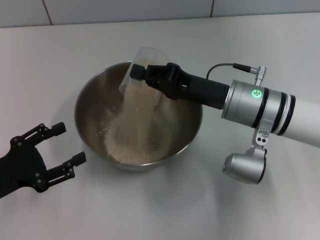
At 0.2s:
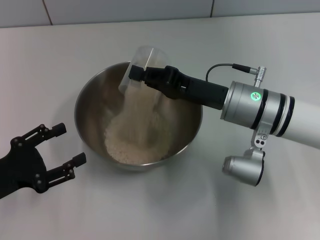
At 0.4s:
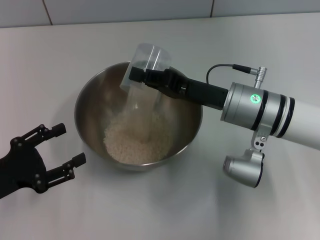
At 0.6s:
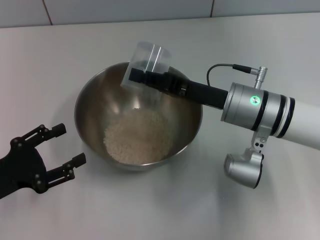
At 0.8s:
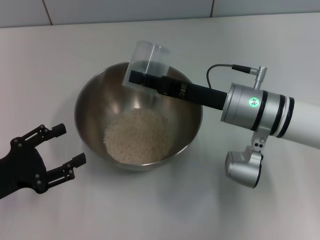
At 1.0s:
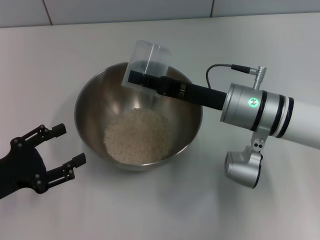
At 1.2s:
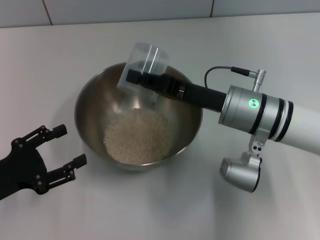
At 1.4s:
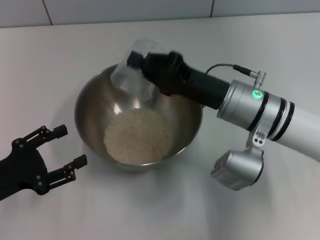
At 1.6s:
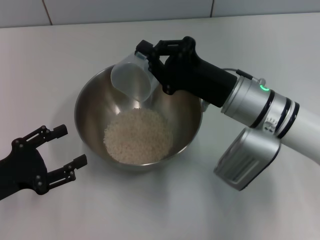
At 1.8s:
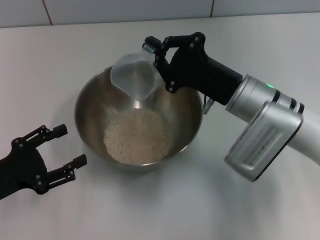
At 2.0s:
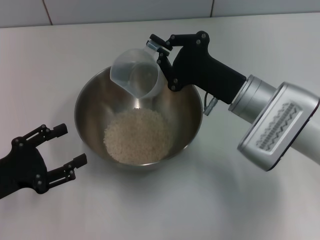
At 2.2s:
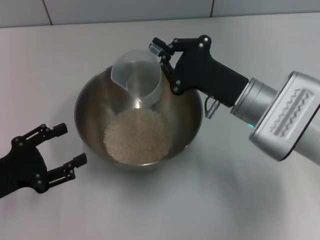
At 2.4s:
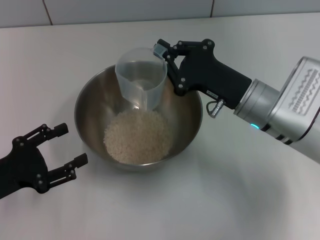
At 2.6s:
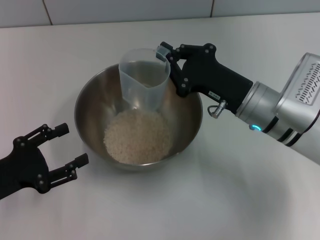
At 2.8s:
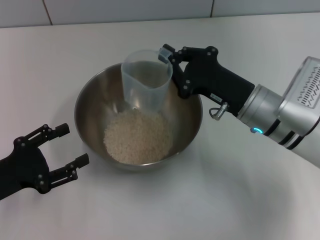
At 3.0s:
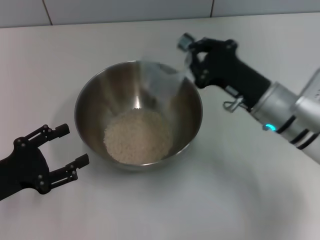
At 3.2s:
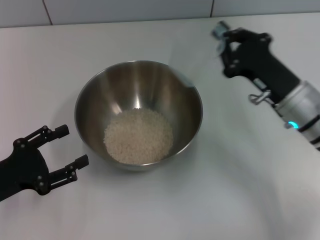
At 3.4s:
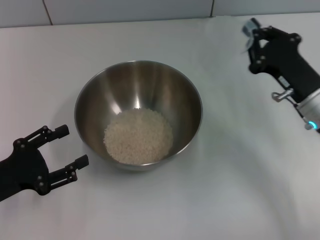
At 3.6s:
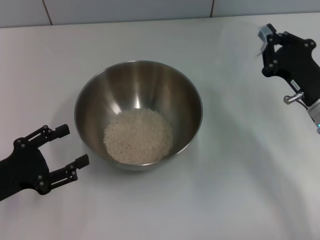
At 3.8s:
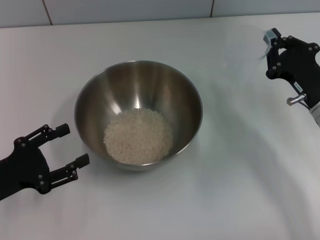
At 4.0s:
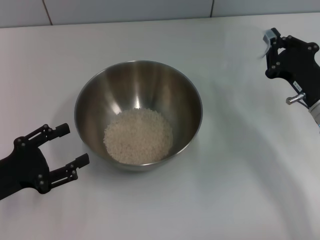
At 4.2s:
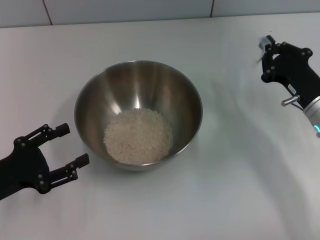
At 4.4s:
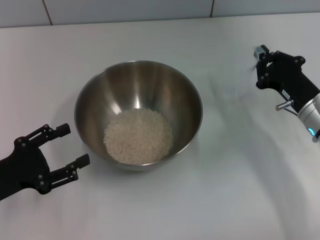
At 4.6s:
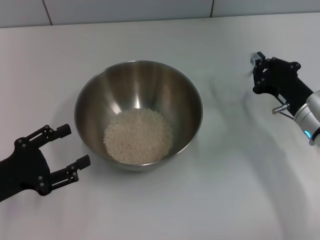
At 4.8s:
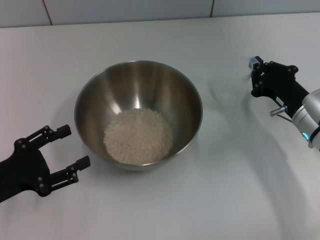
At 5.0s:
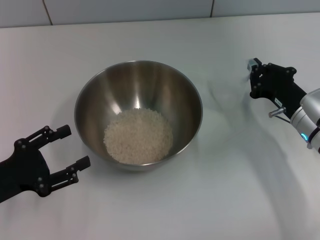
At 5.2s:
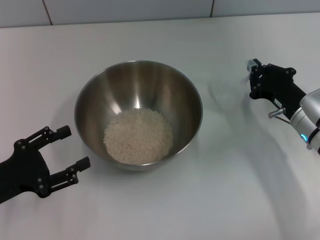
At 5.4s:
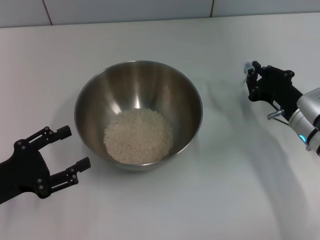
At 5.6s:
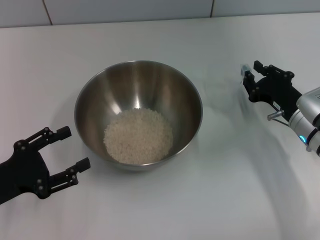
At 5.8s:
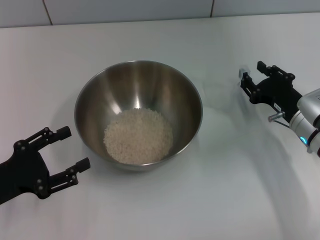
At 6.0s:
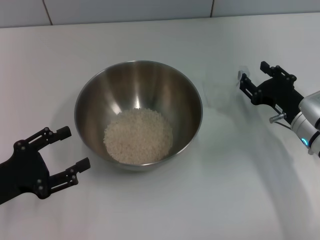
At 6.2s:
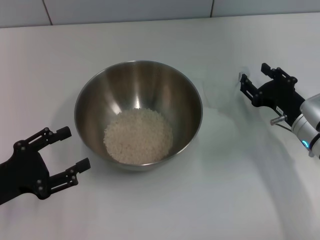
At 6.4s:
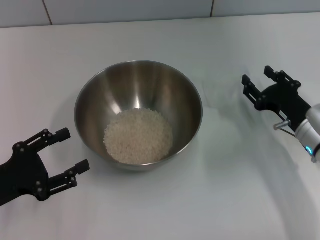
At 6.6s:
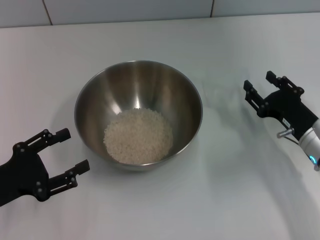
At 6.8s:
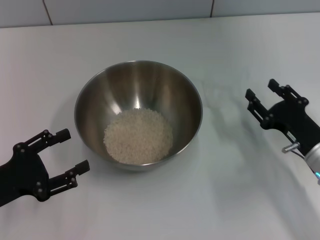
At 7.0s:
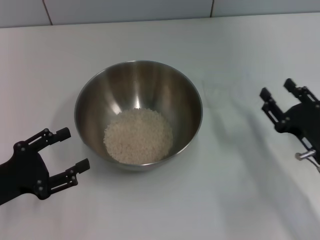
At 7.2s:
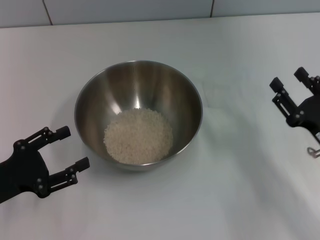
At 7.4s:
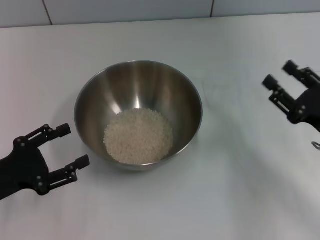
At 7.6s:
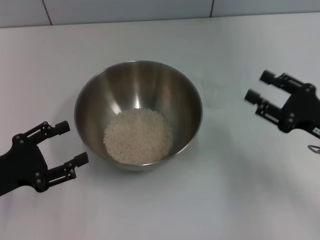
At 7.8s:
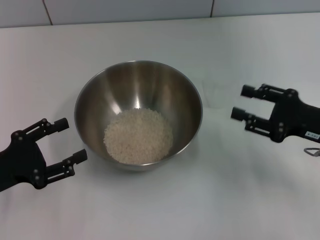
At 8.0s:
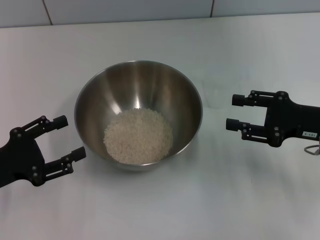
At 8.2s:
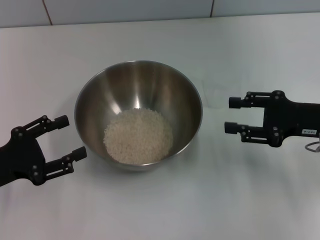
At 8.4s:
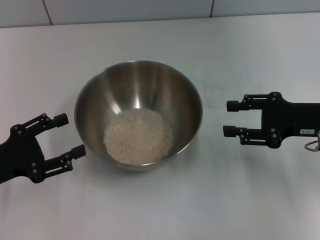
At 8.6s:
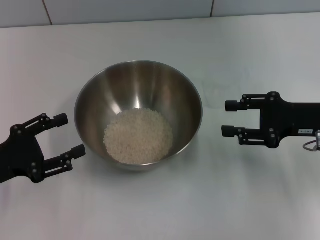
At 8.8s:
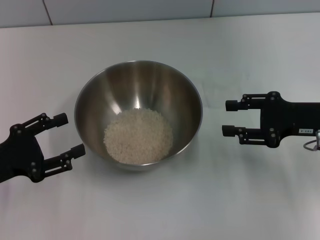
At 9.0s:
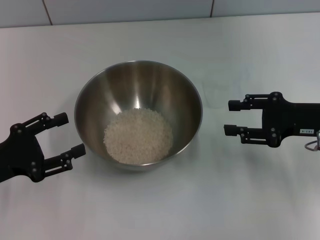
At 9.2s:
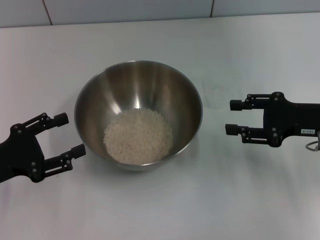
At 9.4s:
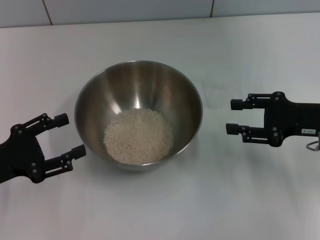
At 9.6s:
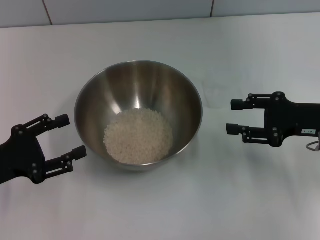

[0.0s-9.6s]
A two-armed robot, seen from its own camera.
Task of the whole recording: Place the bowl in the middle of the table with one hand and pour the rice from the grain cup into it with the other hand.
Step, 0.0s to 3.0s: Pour the rice from the cup into the bowl with the right gripper.
Step, 3.2s to 7.0s: Place the cup on the table with the right gripper.
1.6s to 3.2s: The right gripper travels to the right by some 5 cm.
3.2s to 4.8s: The right gripper changes place by roughly 5 cm.
4.8s to 6.4s: The right gripper opens its fingers.
6.4s to 8.0s: The right gripper shifts roughly 5 cm upward.
8.0s to 9.6s: The grippers make only small movements.

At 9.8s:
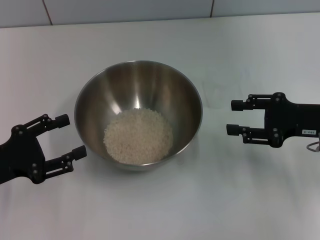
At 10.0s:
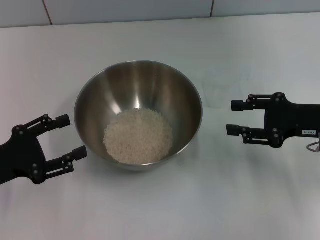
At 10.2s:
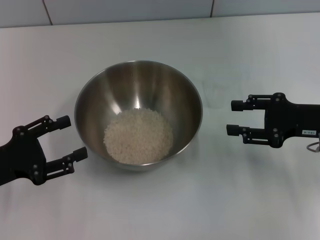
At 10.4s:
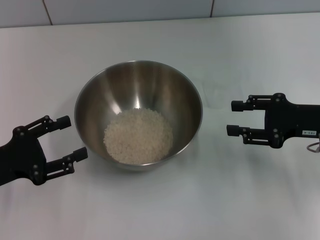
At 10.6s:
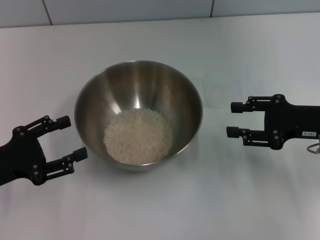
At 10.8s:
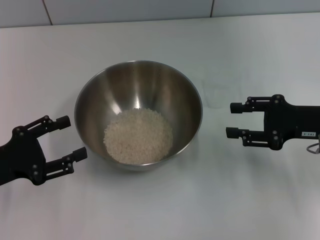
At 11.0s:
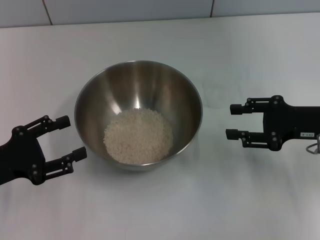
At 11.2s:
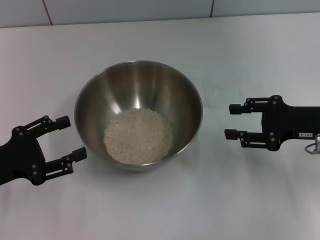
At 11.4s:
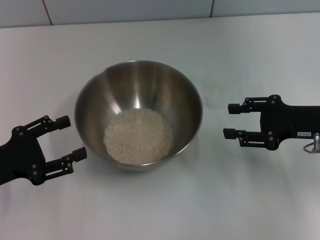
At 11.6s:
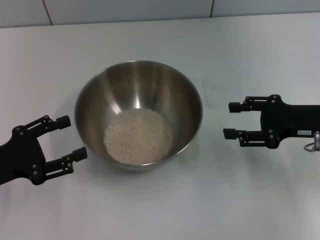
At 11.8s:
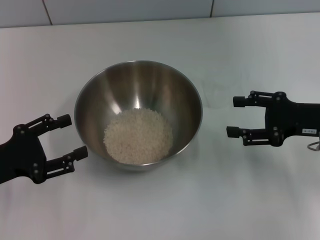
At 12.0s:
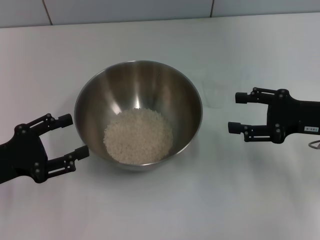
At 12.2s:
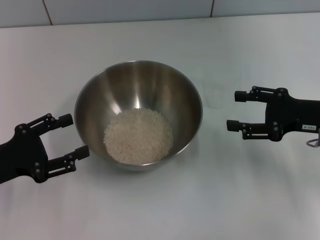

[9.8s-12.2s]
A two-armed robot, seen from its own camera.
Task of the whole recording: Place the bowl in the middle of the table with one hand and pour the rice from the grain cup into it with the other hand.
9.8s to 11.0s: The two grippers keep their place.
11.0s to 12.2s: There are only small adjustments of the grippers.
